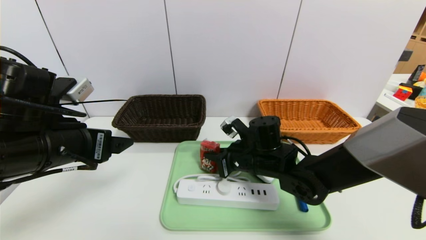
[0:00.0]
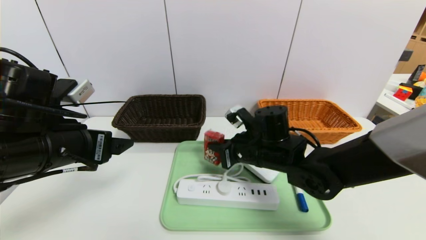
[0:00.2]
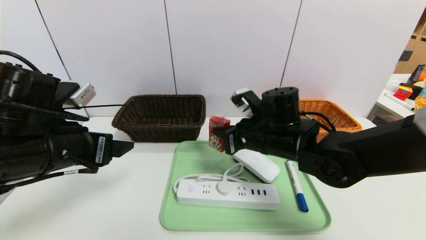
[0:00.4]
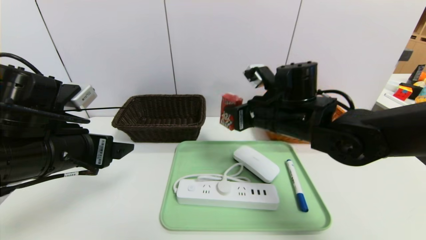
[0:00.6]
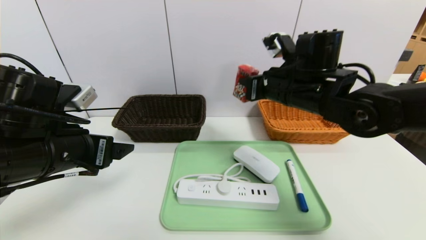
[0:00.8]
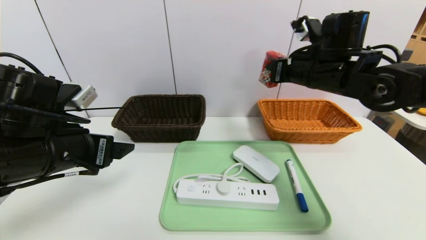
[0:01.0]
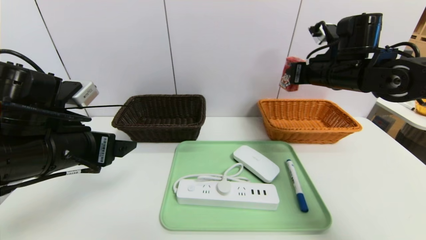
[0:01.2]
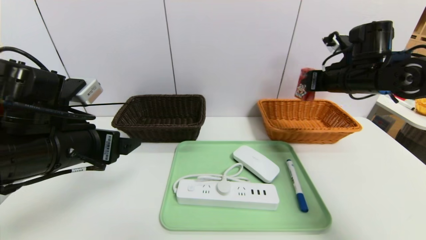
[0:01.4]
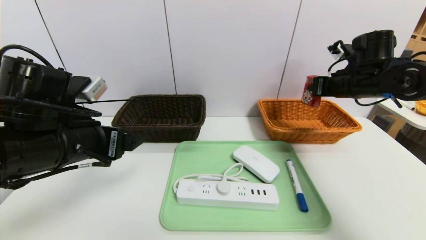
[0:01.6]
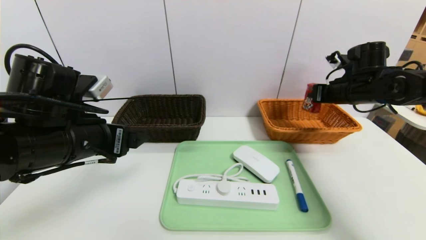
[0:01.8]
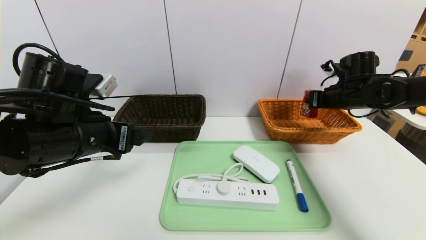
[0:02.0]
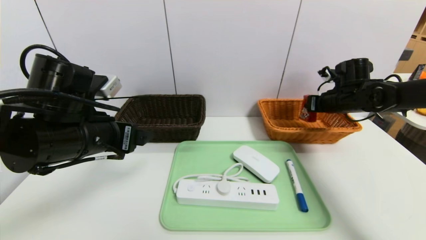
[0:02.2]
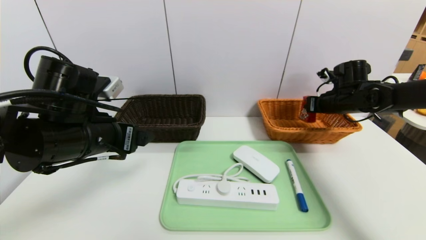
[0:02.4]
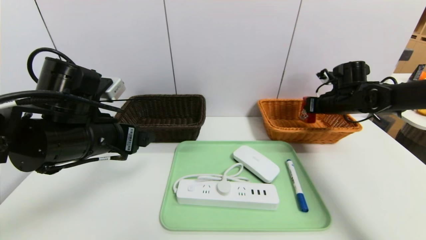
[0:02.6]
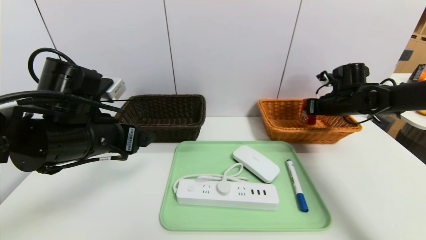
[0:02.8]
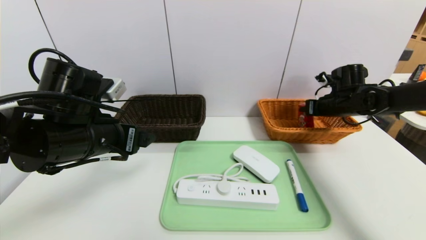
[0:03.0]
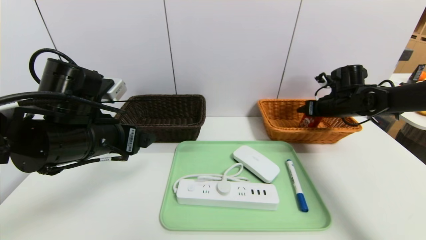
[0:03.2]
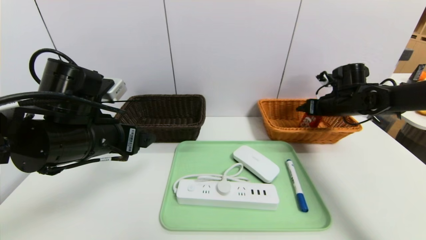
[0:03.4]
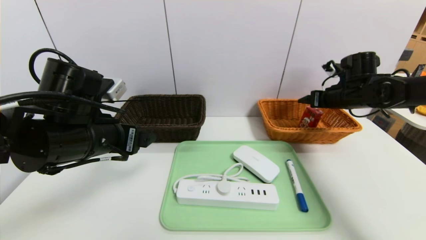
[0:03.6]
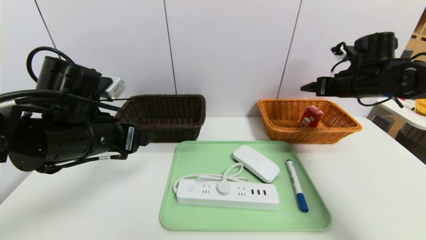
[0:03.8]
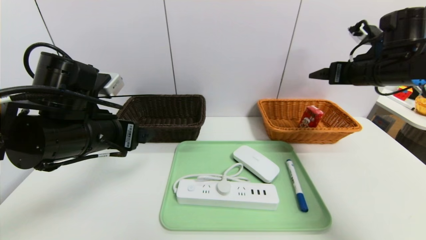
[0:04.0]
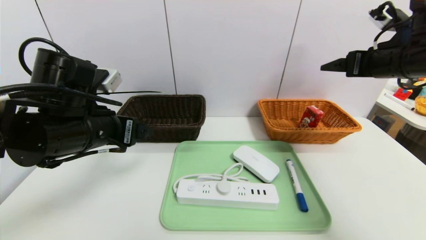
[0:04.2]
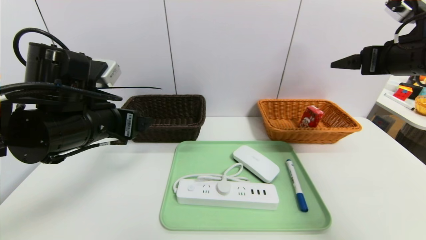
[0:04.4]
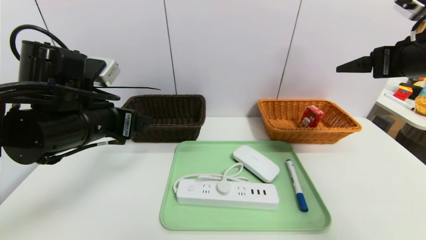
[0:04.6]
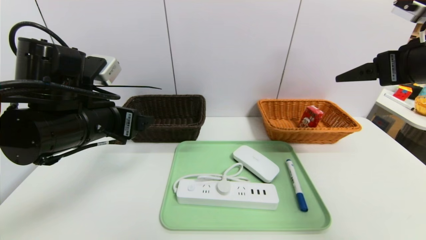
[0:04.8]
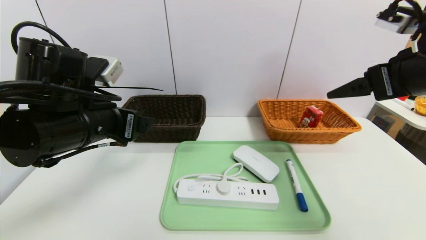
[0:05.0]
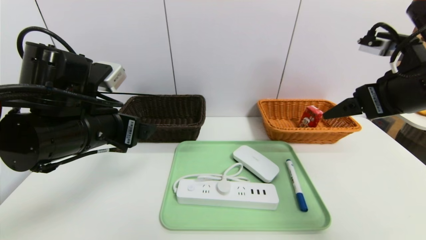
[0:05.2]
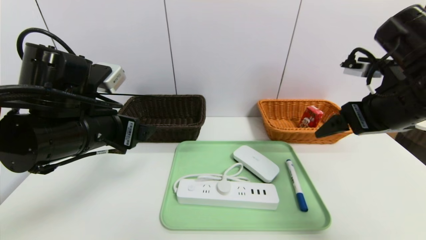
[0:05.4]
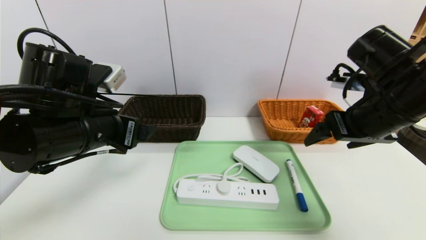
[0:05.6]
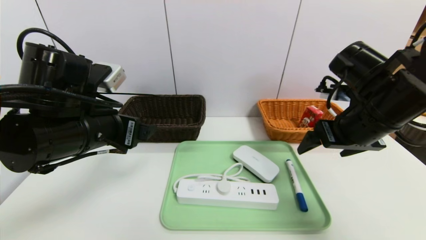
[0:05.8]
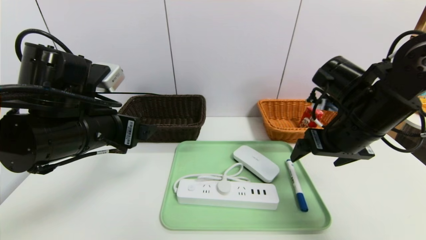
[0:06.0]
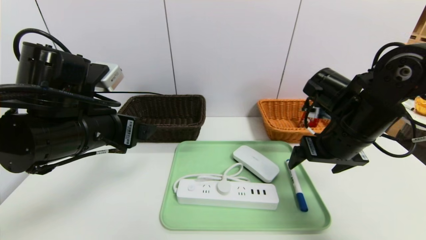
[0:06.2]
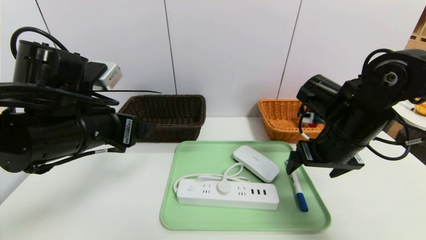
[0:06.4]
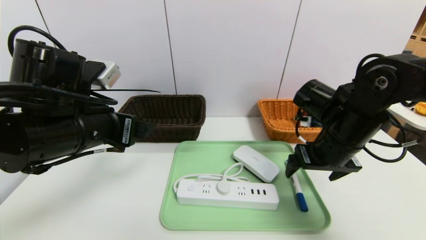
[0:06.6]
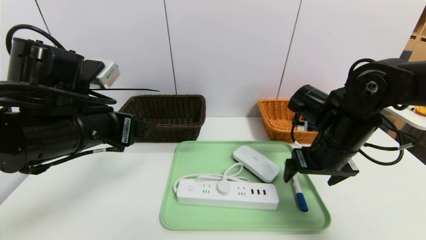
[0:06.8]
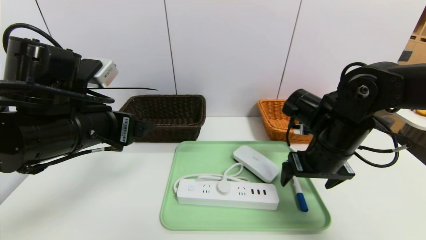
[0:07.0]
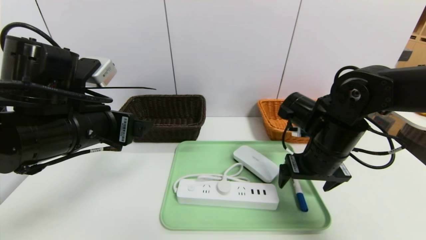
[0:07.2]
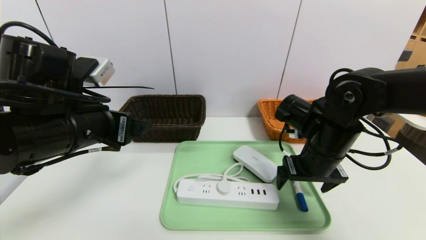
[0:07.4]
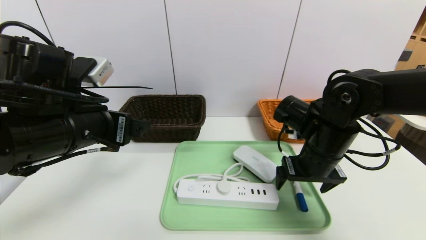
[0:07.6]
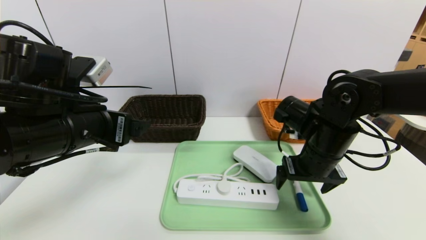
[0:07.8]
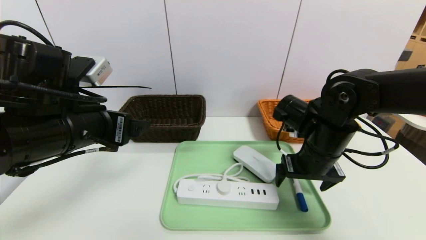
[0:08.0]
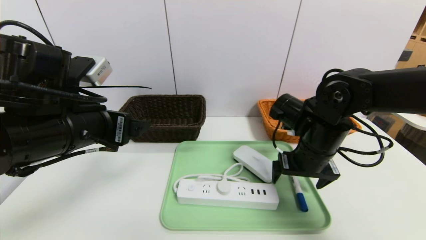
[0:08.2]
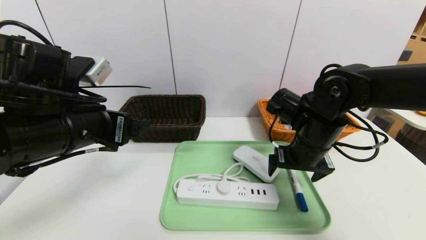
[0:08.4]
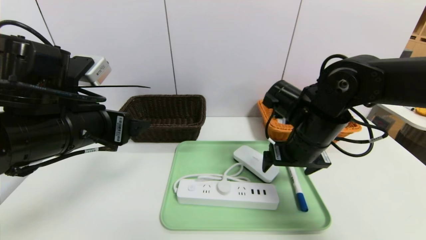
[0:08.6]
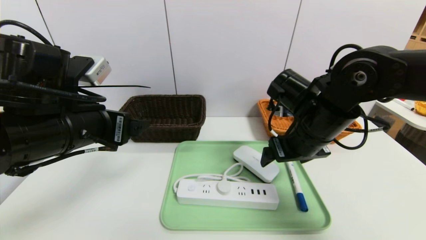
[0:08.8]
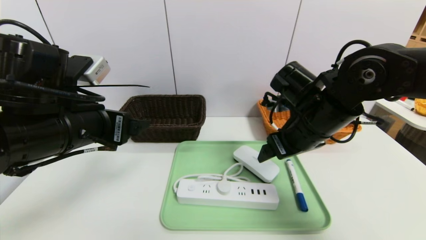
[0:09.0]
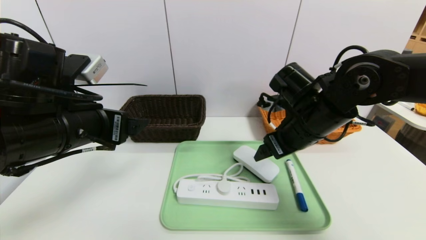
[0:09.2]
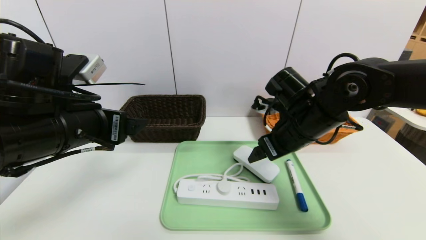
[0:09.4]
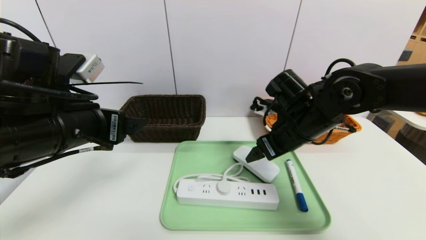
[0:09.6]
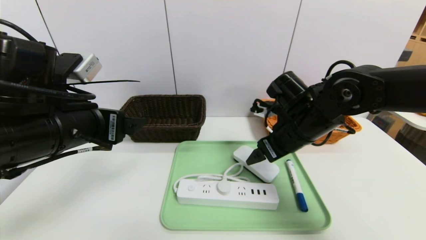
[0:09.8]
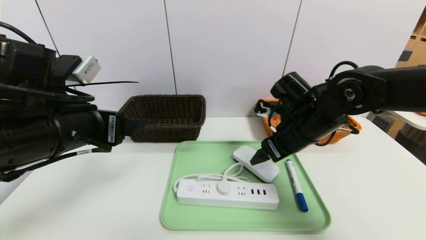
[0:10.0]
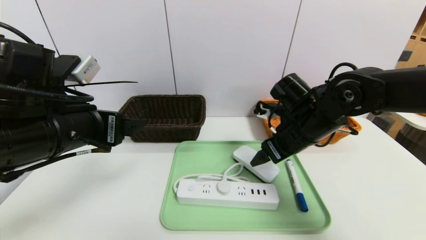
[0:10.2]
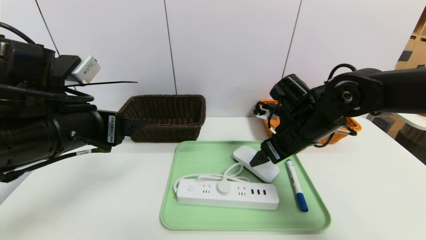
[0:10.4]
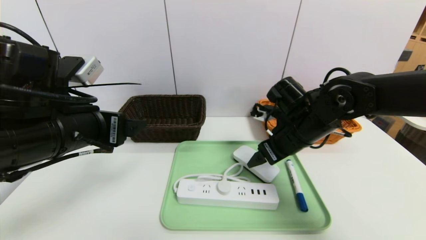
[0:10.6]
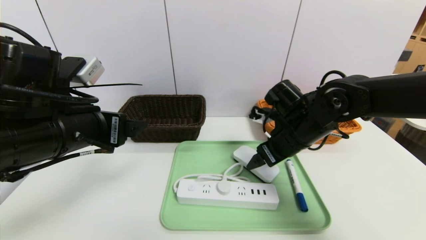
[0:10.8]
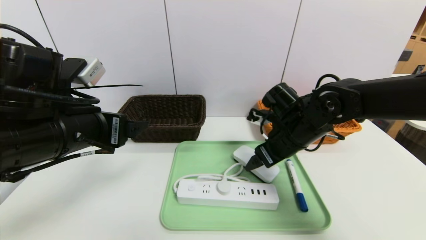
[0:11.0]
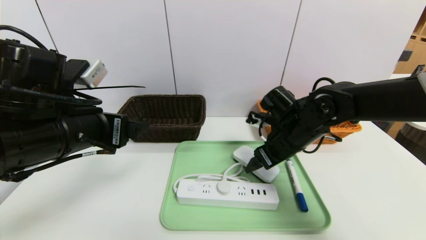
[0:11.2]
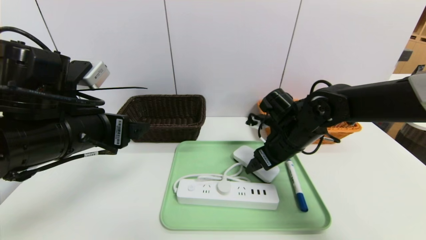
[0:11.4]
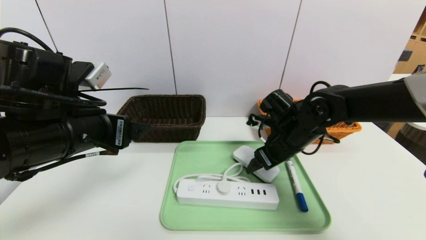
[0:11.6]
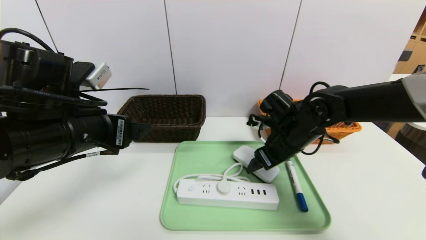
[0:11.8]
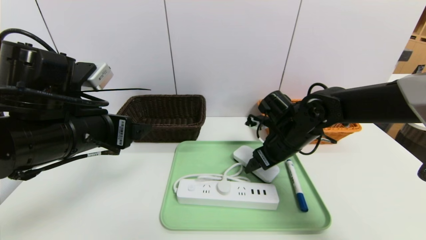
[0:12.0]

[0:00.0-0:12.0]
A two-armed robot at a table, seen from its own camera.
Task of the whole recording: place the food in the right basket with the right gripper, and place the non food items in the left basket with the left gripper.
Step, 0:00.0 to 0:04.2: Grasp the ad milk and put it in the right basket.
0:00.0 to 0:01.6: The right gripper goes approximately 25 cm to the right and upward.
0:01.6 to 0:03.0: The right gripper heads downward and forward, covering about 10 cm, and opens.
0:03.0 to 0:04.4: The right gripper shifts some 20 cm upward and backward, and opens up.
0:04.4 to 0:06.0: The right gripper travels to the left and downward by some 15 cm.
0:06.0 to 0:07.6: The right gripper travels downward by roughly 5 cm.
0:07.6 to 0:09.0: The right gripper shifts by about 5 cm.
0:09.0 to 0:10.4: The grippers stay close to where they were, moving slightly.
0:10.4 to 0:12.0: The right gripper moves about 5 cm.

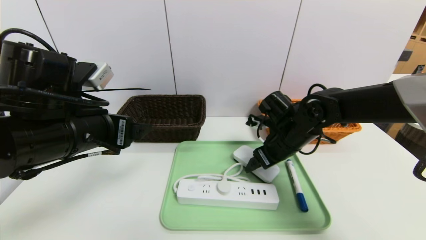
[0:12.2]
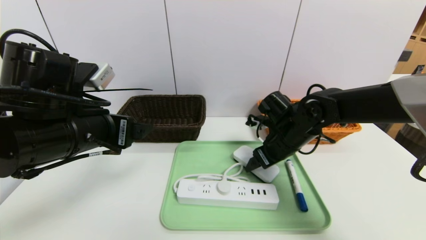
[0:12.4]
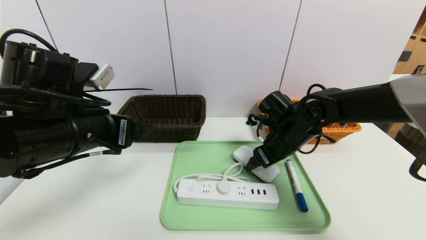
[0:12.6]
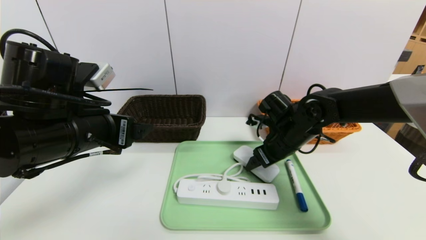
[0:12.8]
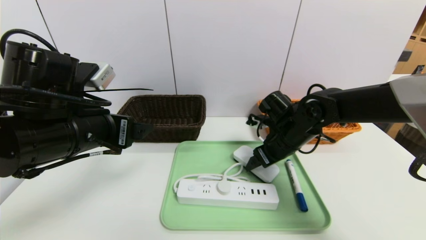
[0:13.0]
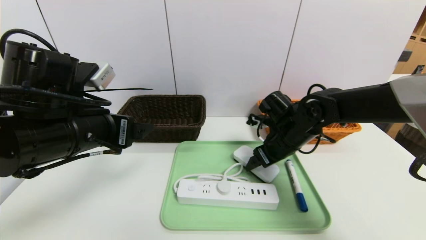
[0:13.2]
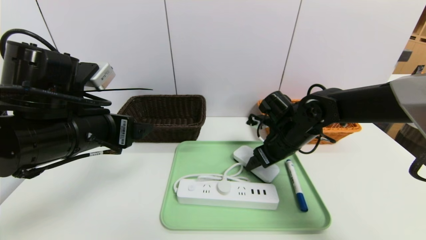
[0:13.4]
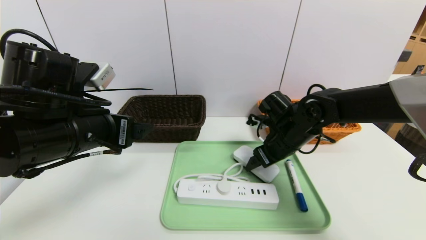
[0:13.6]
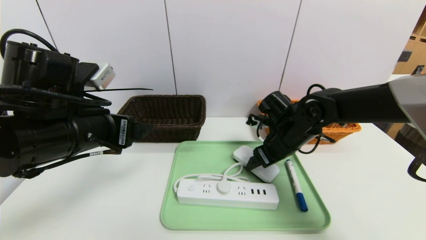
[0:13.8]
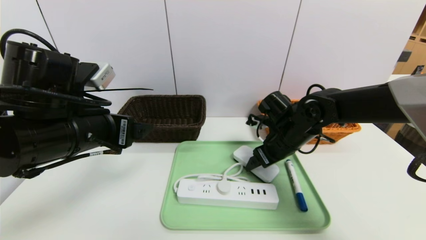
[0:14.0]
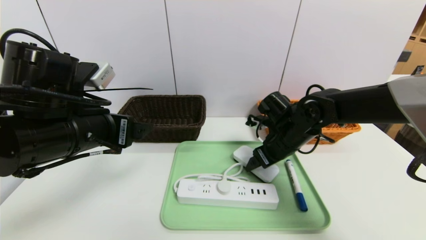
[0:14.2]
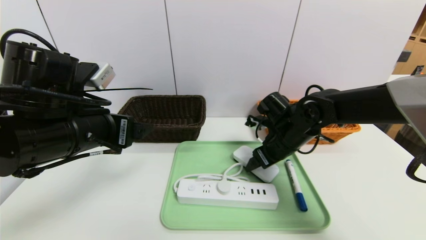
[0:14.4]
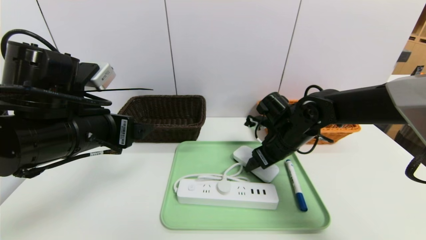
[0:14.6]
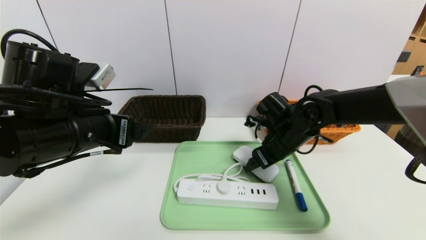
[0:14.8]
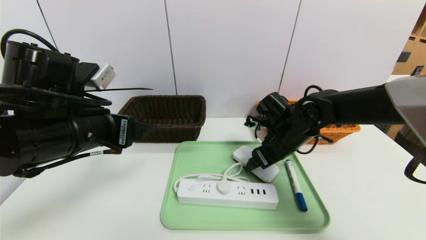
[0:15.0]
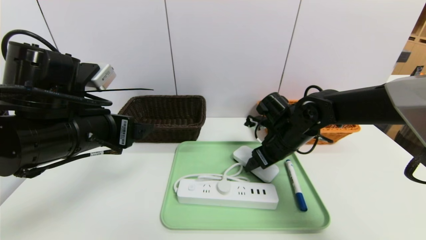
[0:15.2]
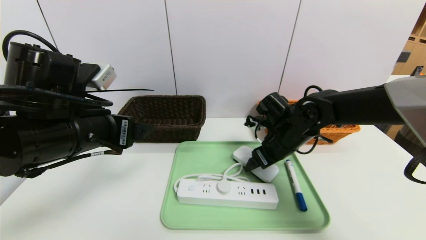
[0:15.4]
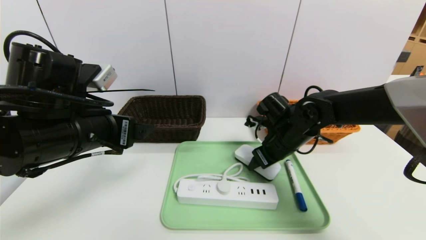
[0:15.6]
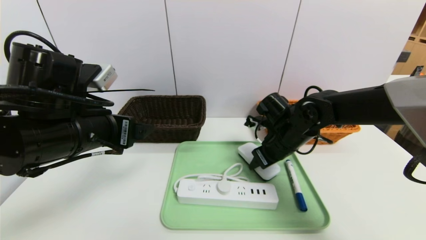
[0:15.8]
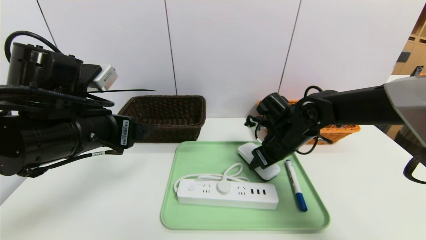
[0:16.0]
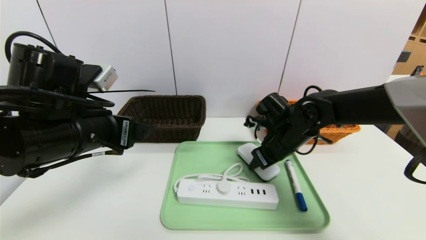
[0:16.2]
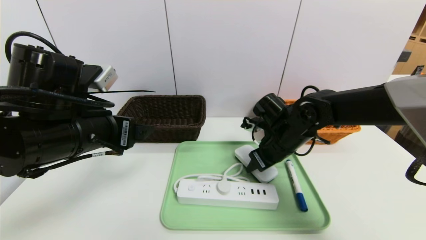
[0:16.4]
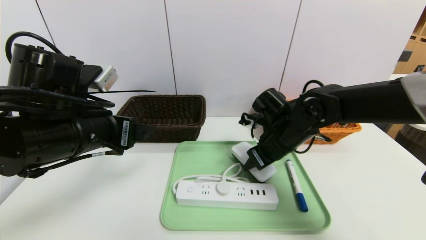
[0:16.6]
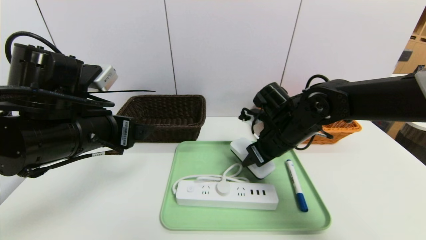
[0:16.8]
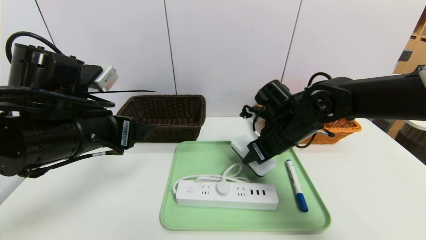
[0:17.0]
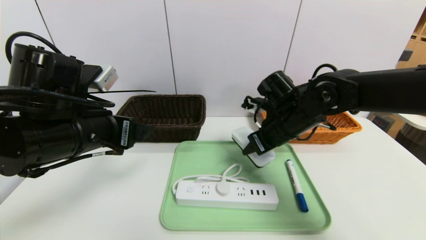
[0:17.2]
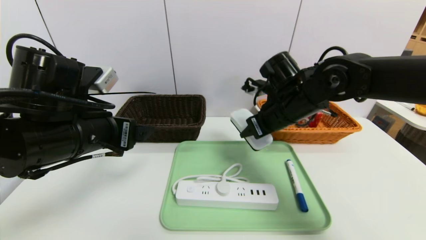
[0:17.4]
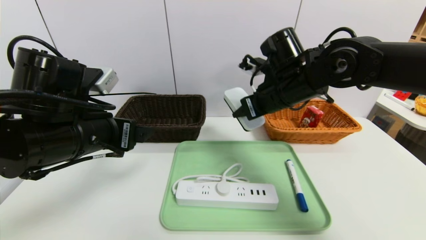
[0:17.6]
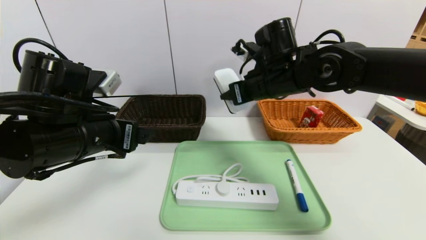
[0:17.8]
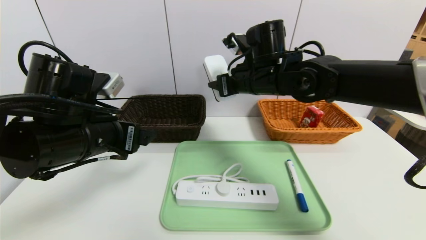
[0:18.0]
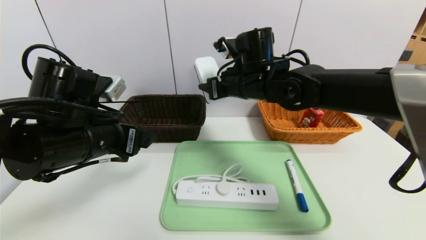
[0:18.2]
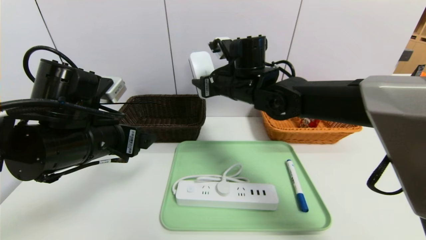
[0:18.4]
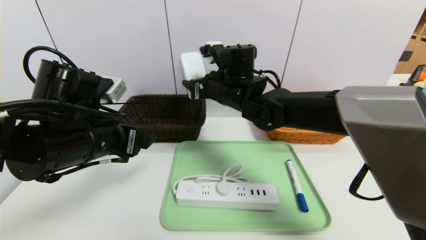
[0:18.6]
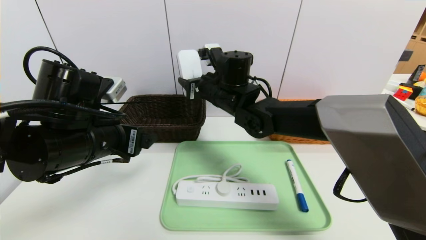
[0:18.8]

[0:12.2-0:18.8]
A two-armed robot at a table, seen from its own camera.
Task of the whole recording: place the food in the right basket with the right gripper, and place the non food items in the left basket with the left gripper.
0:12.2 to 0:13.8: The two grippers keep their place.
0:13.8 to 0:15.4: The grippers make only small movements.
0:15.4 to 0:17.2: The right gripper goes some 10 cm upward, and closes its fingers.
0:17.2 to 0:18.8: The right gripper moves to the left and forward, some 15 cm.
